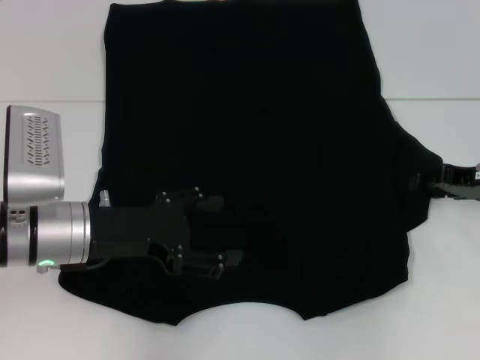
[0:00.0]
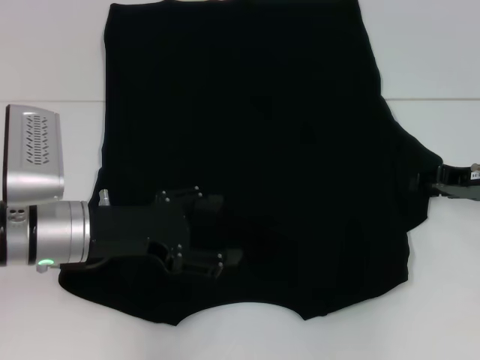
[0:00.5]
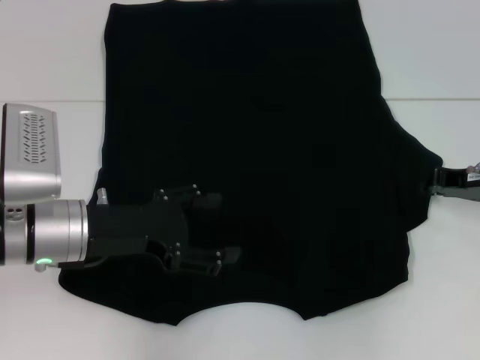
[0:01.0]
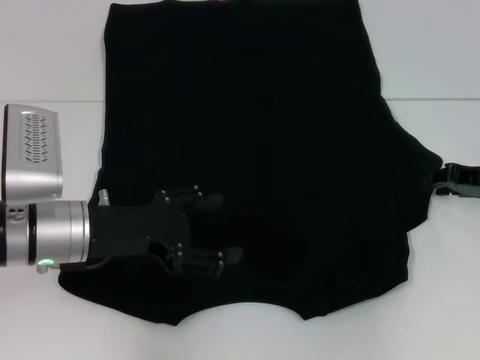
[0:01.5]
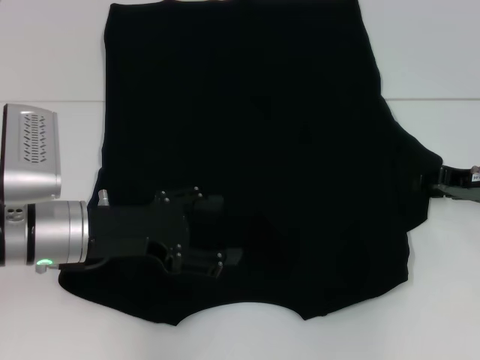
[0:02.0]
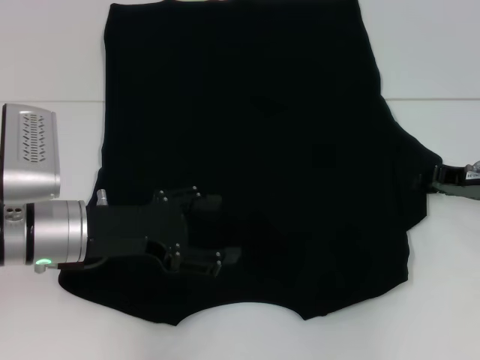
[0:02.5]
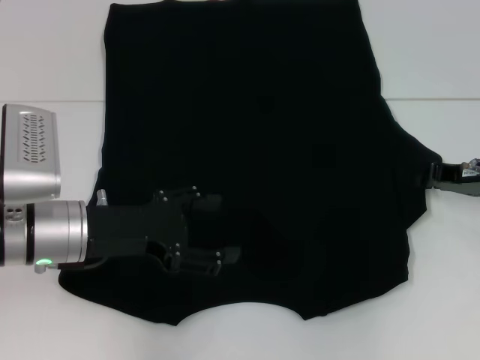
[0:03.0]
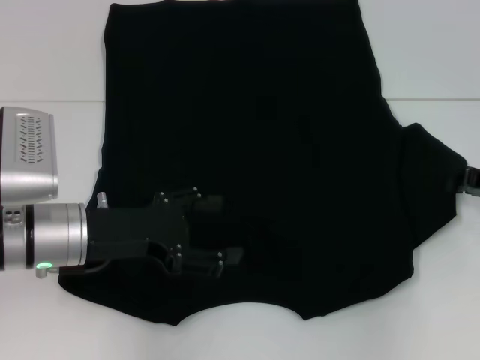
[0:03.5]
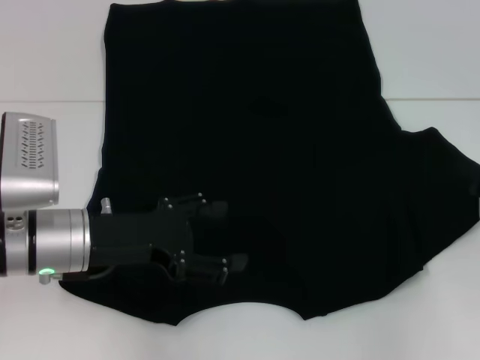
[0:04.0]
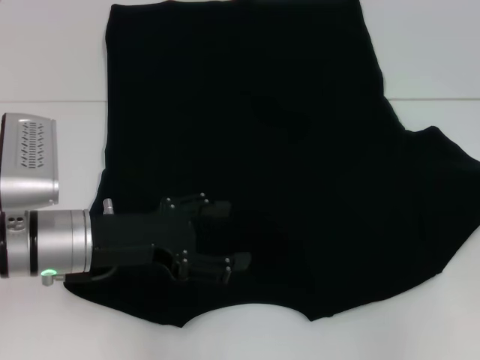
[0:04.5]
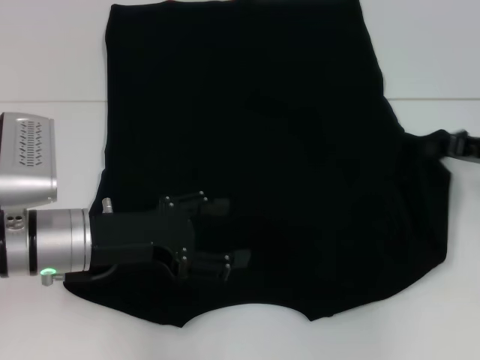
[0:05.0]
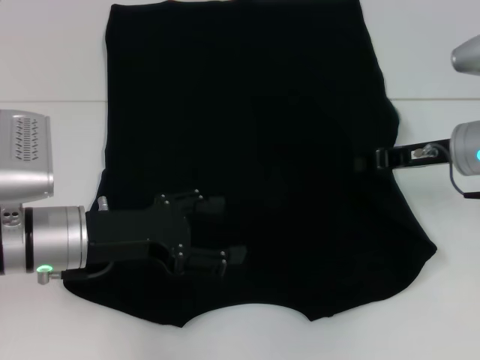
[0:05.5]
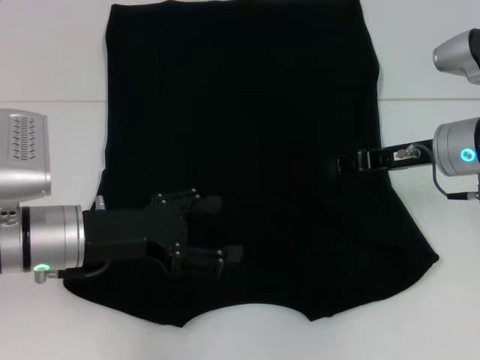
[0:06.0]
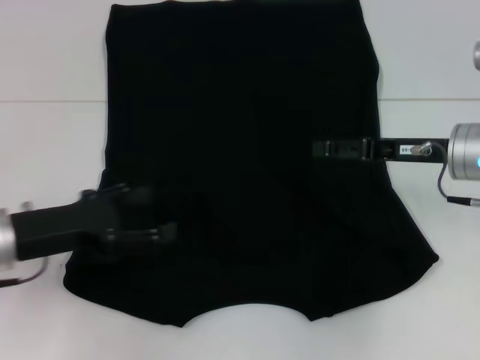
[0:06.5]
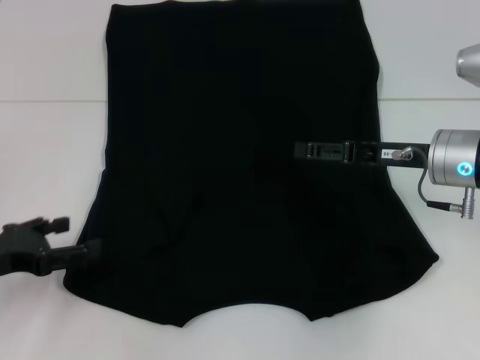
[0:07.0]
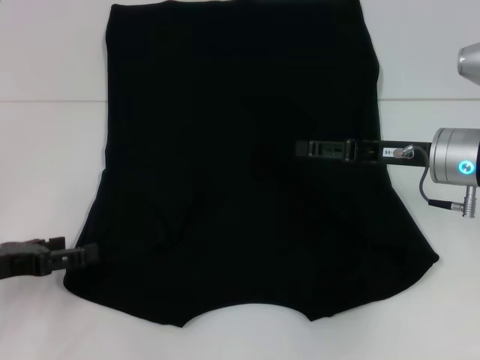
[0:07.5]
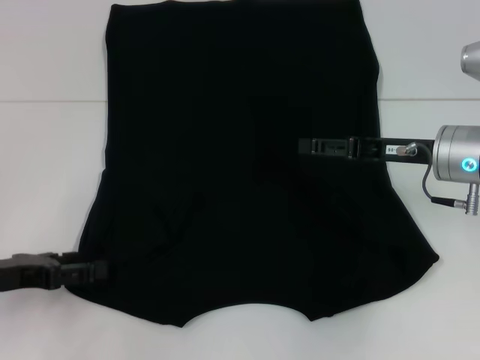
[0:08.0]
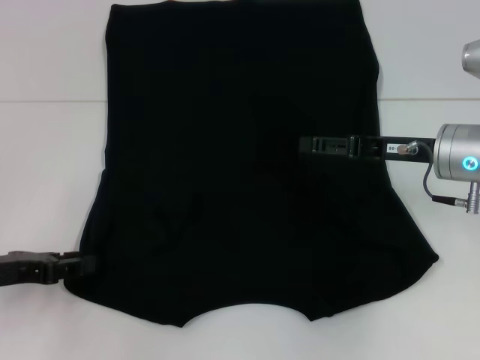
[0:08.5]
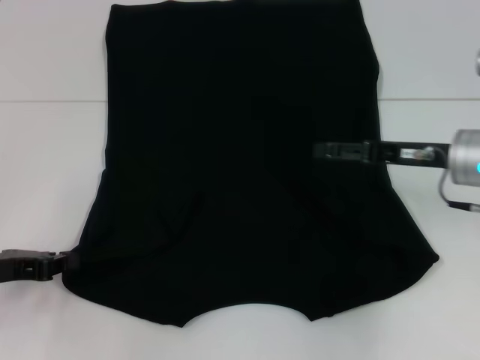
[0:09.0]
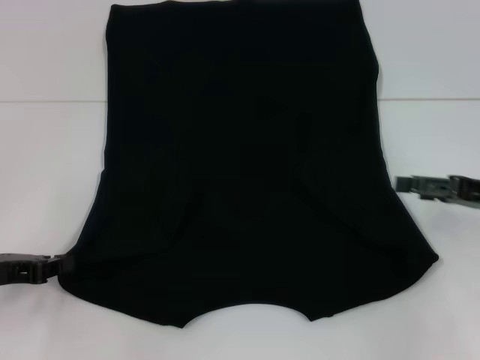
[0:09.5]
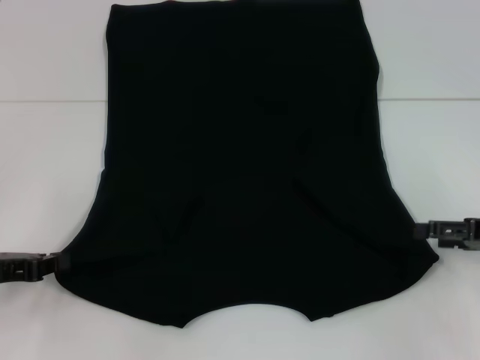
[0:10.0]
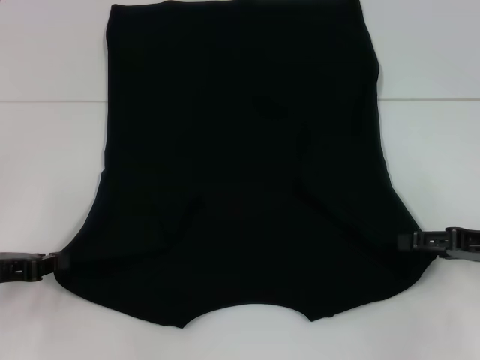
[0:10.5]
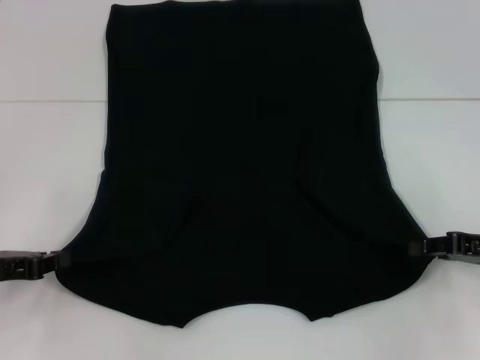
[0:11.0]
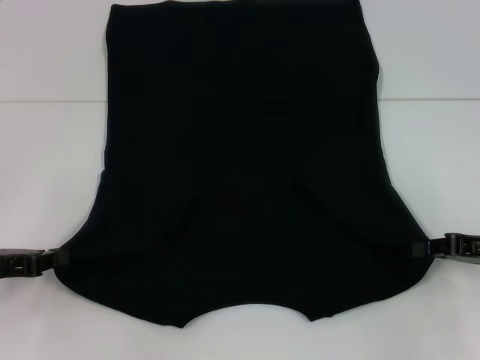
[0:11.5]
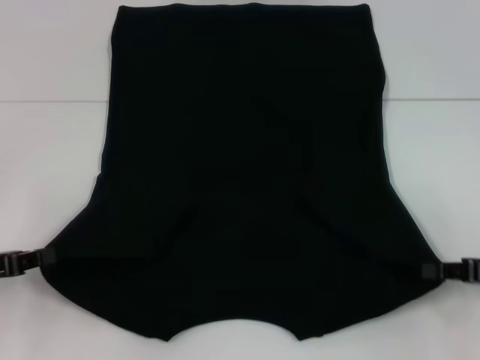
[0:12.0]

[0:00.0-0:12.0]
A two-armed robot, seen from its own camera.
Step, 0:00.0 to 0:06.0: Fold the bottom right sleeve with your right hand.
Step, 0:06.5 to 0:09.0: Grab the bottom left corner with your left hand.
Step, 0:09.5 to 0:11.0: Grab the bottom right corner with your right hand.
0:02.0 to 0:04.0: The right gripper is displaced to the right by about 5 cm, and closes up.
0:04.0 to 0:06.0: The right gripper travels to the left by roughly 15 cm.
0:06.0 to 0:08.0: The right gripper opens its fingers. Meanwhile the left gripper moves to the left, about 10 cm.
0:08.0 to 0:10.0: The left gripper closes up. The right gripper goes about 15 cm to the right and backward.
0:10.0 to 0:12.0: The right gripper closes its fingers.

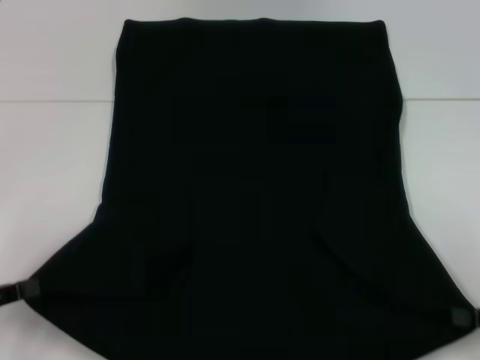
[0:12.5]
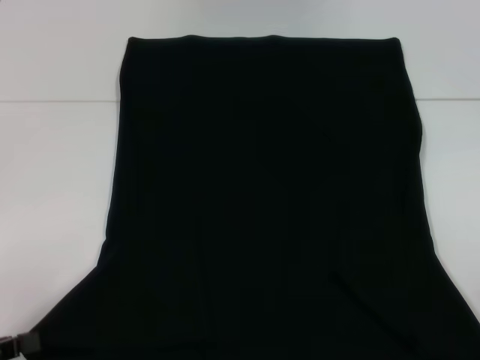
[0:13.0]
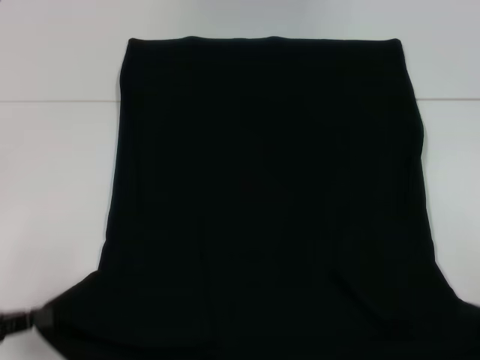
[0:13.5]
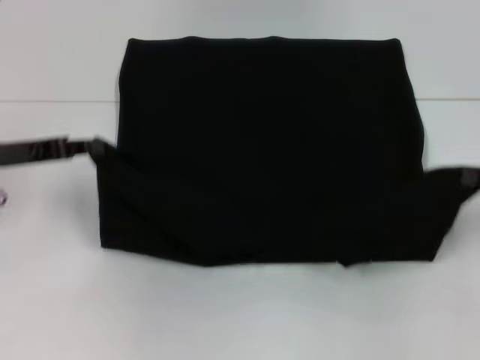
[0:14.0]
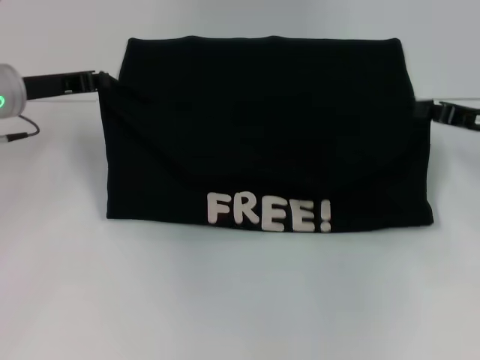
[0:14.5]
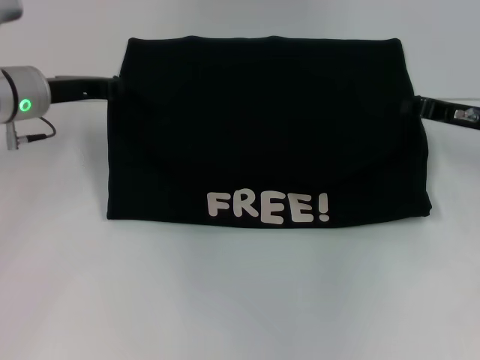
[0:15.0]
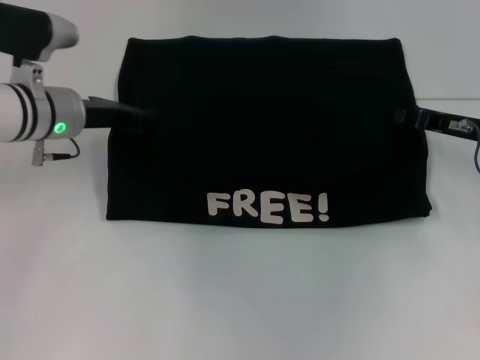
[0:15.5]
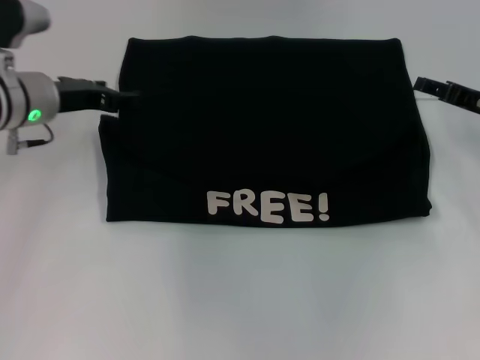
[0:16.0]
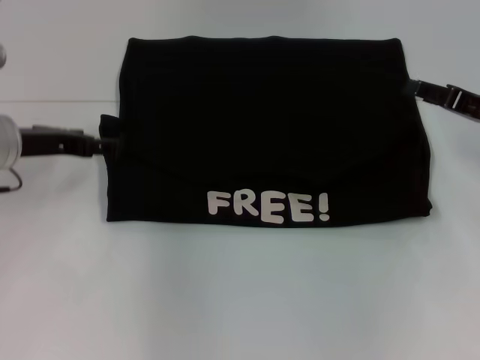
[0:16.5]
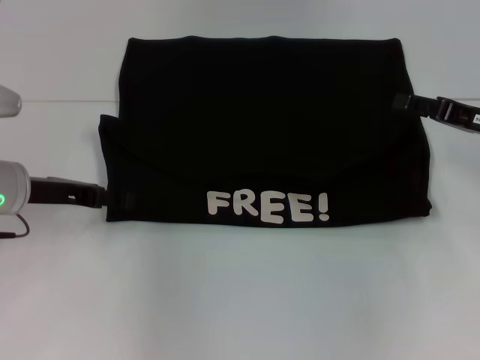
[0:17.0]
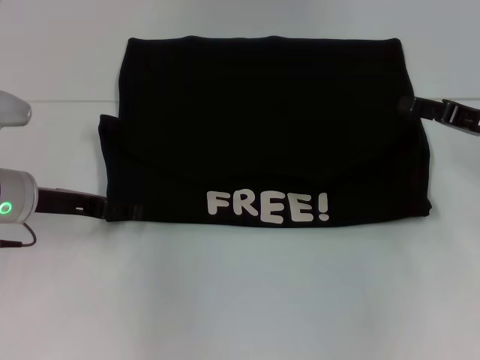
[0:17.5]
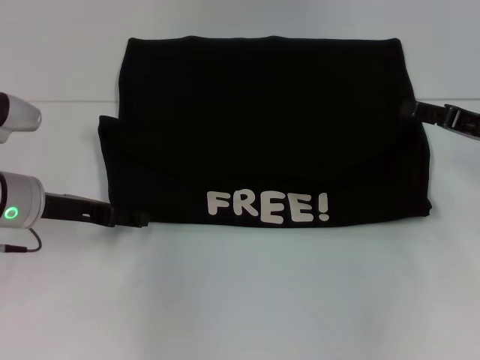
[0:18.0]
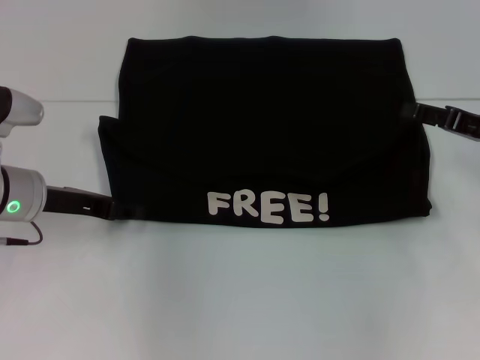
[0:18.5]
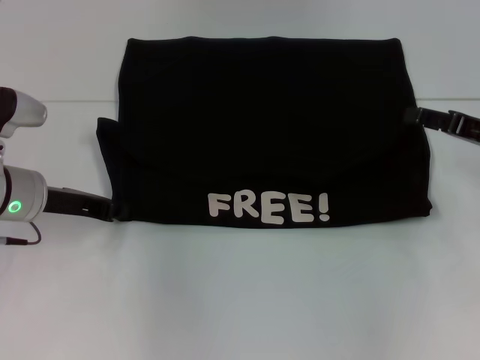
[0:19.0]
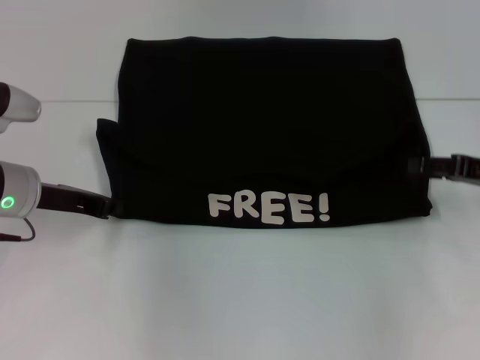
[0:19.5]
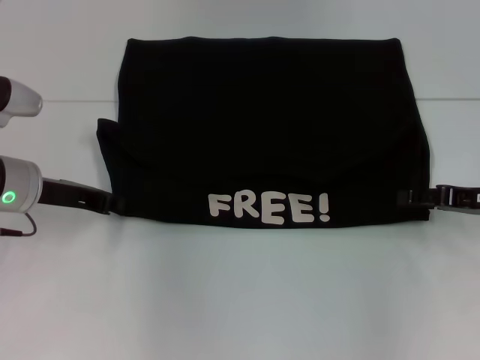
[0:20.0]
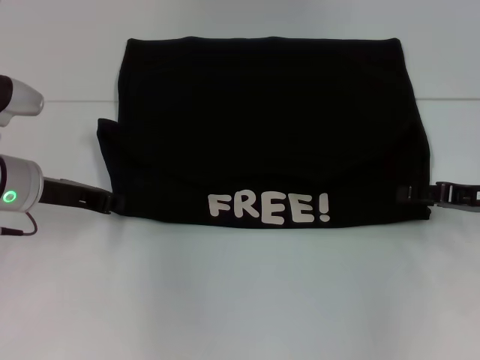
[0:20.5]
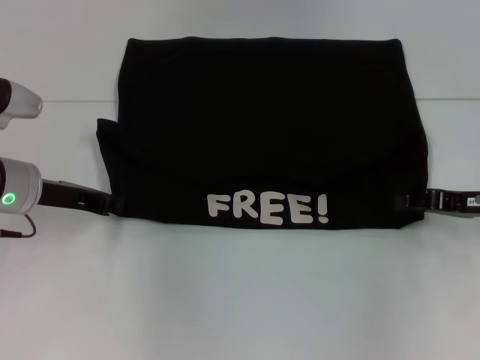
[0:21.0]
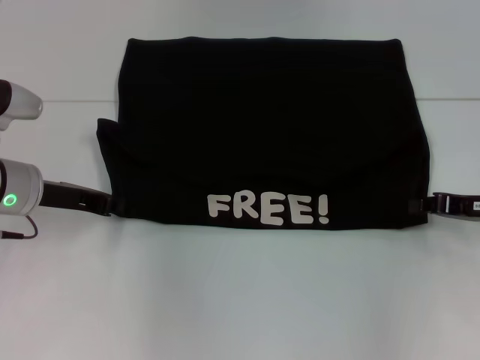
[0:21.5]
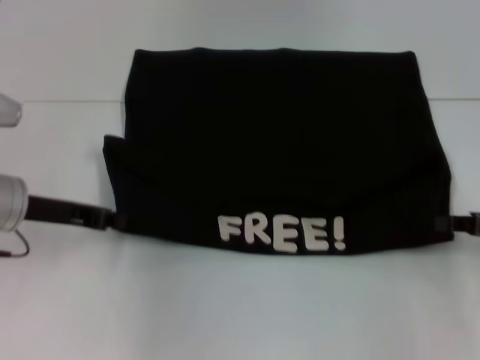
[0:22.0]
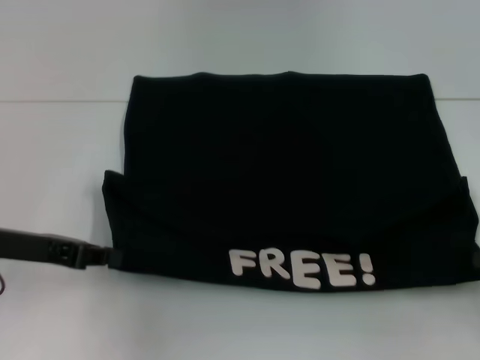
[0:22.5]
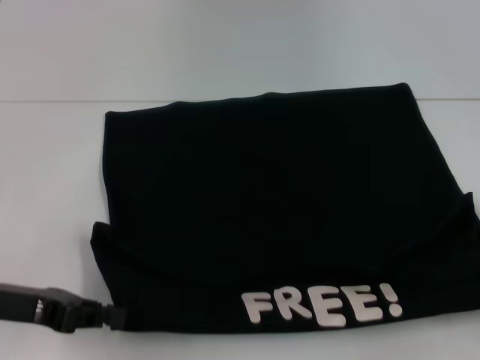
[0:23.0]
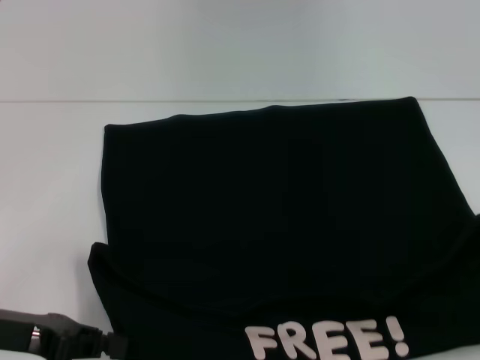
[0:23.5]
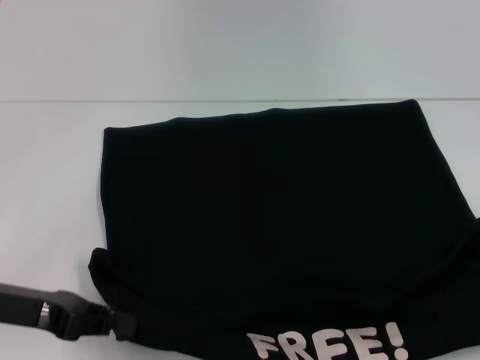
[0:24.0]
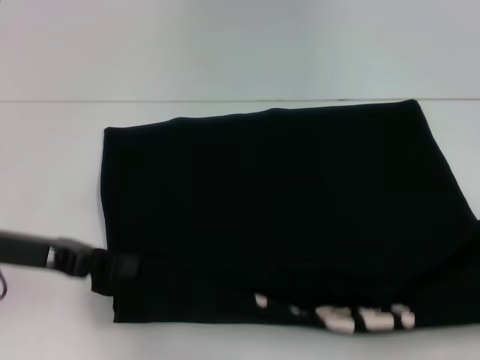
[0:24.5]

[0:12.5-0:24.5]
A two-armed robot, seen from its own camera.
Step, 0:12.5 to 0:15.5: Fold the clothes with your left hand.
Step, 0:12.5 to 0:15.5: Fold the clothes with your right hand.
Step, 0:16.0 to 0:23.5: Pull the clothes with your left hand.
Step, 0:16.0 to 0:23.5: Pull the clothes with your right hand.
0:12.5 to 0:14.5: Both grippers travel together forward, about 20 cm.
0:14.5 to 0:16.5: The right gripper opens its fingers, while the left gripper moves approximately 5 cm, and opens.
0:16.5 to 0:18.5: The grippers make only small movements.
0:18.5 to 0:20.5: The left gripper closes.
0:20.5 to 0:22.5: The left gripper moves backward, about 5 cm; the right gripper shifts some 10 cm backward and to the right, and closes its fingers.
0:22.5 to 0:24.5: The right gripper moves some 5 cm.

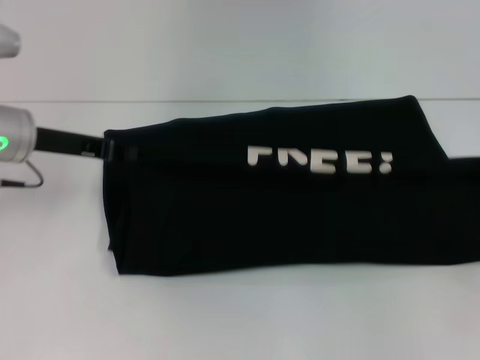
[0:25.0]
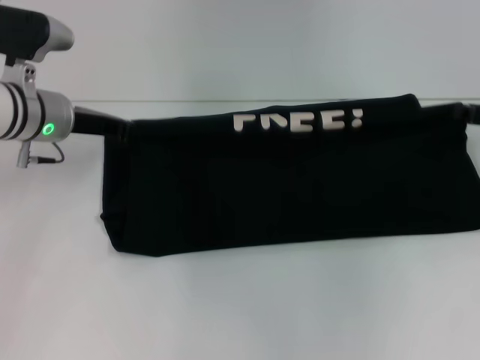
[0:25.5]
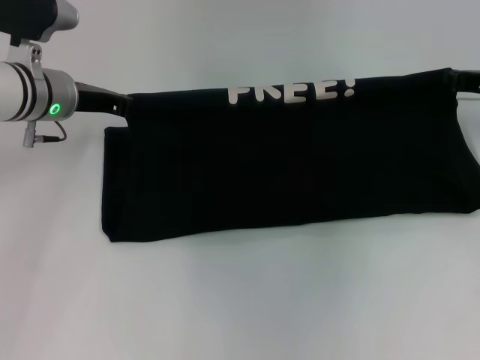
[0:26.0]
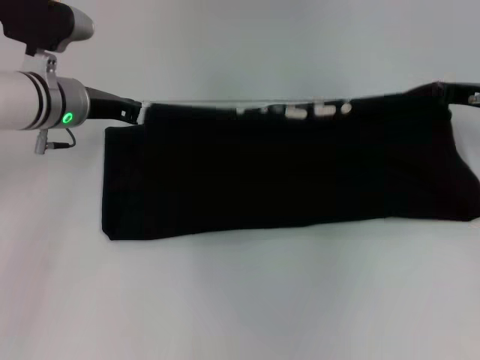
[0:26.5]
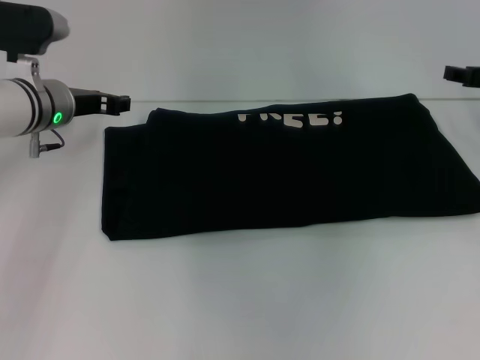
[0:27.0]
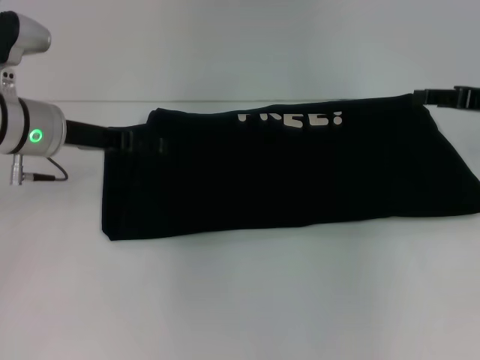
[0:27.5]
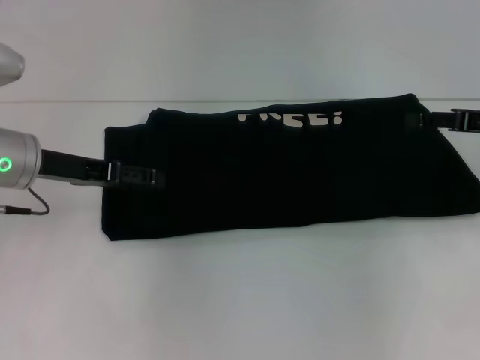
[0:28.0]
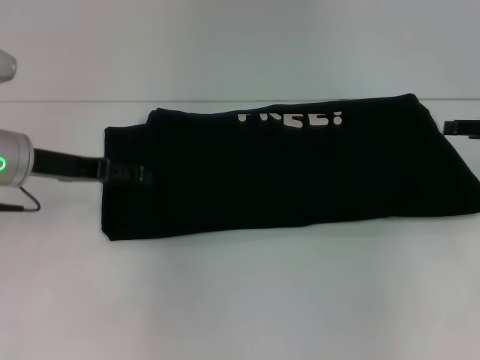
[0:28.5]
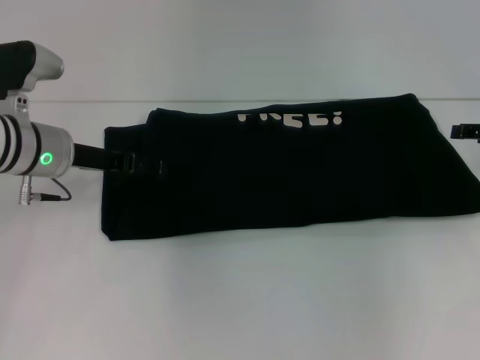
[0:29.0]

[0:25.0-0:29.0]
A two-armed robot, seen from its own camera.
Step, 0:25.0 to 0:26.5: Fold the clothes with your right hand.
0:25.0 to 0:27.0: The right gripper travels forward and to the left by approximately 15 cm, and opens up. The left gripper shifts about 5 cm forward, and opens up.
0:27.0 to 0:29.0: The left gripper opens up, while the right gripper moves roughly 5 cm.
